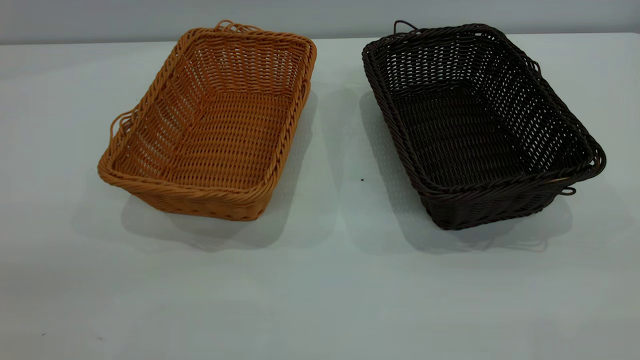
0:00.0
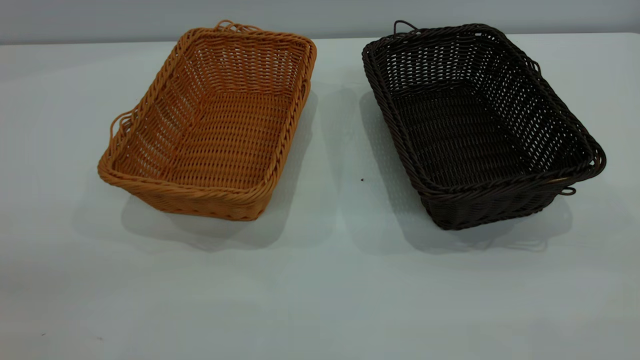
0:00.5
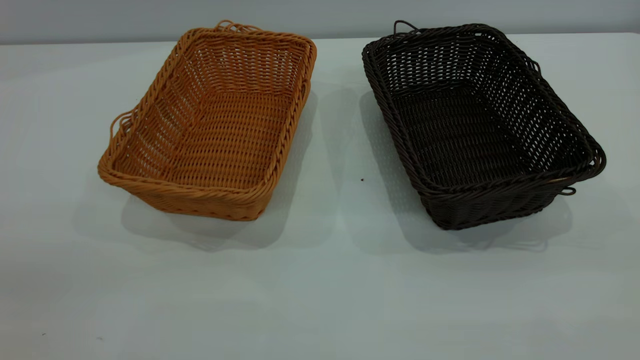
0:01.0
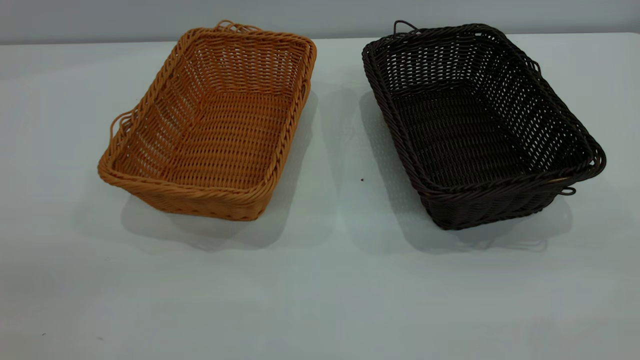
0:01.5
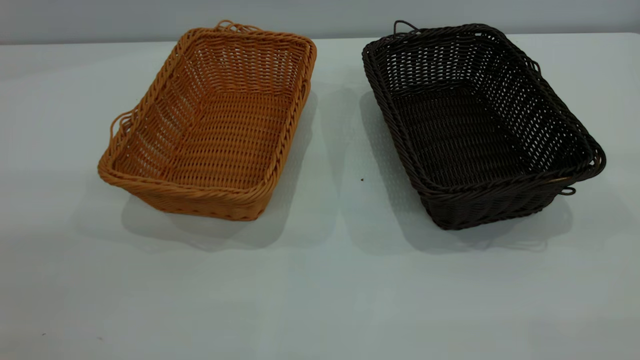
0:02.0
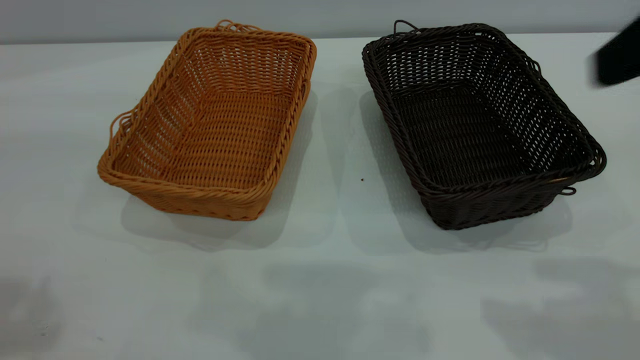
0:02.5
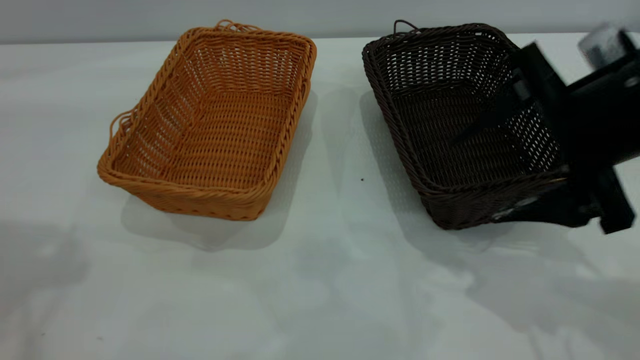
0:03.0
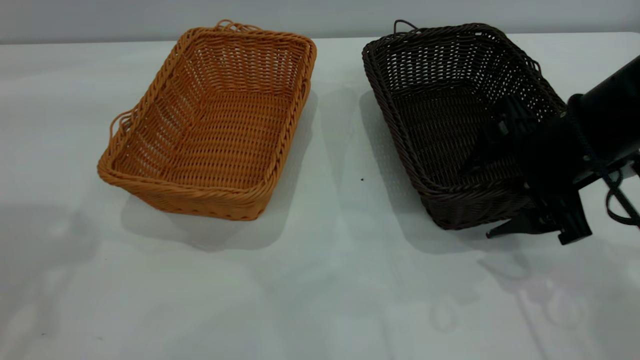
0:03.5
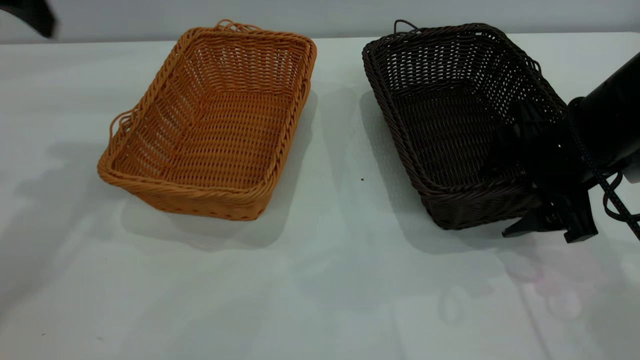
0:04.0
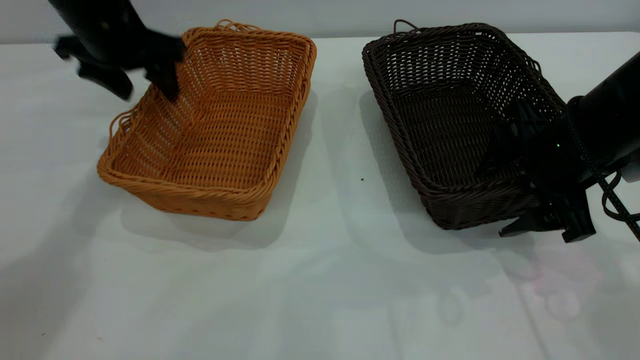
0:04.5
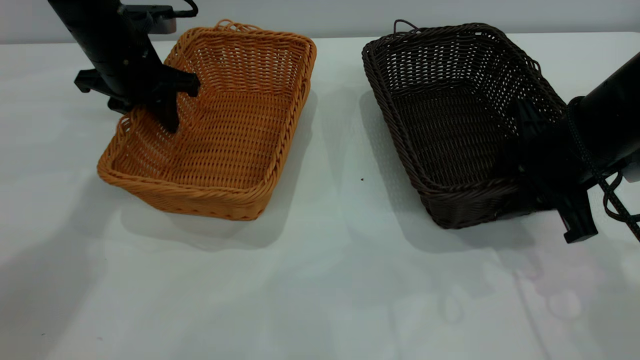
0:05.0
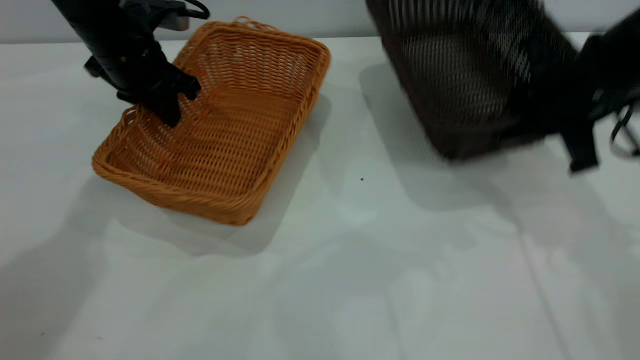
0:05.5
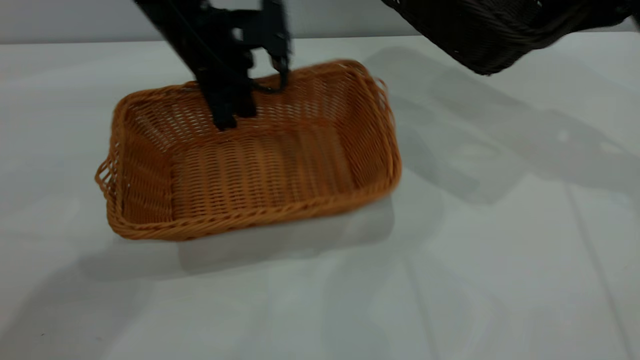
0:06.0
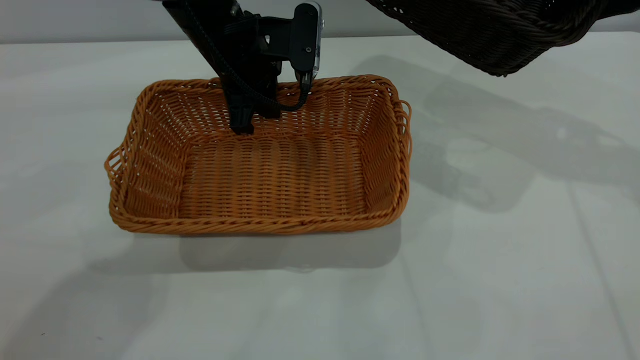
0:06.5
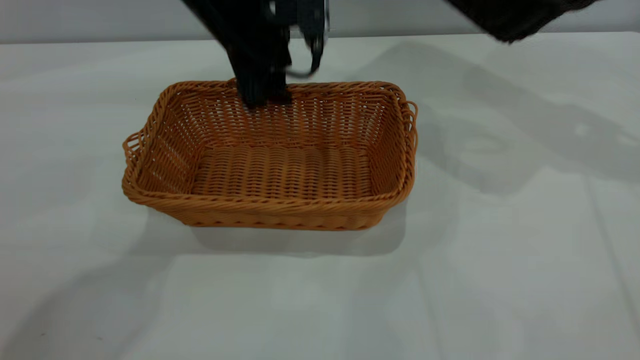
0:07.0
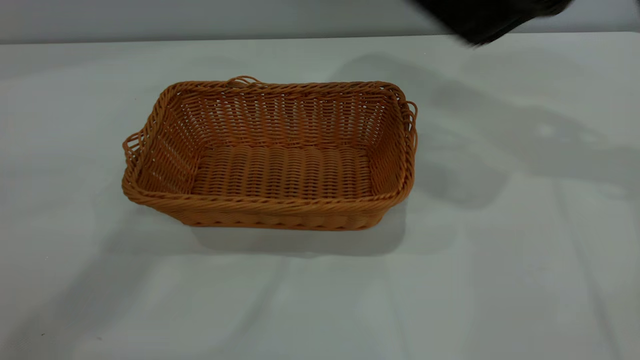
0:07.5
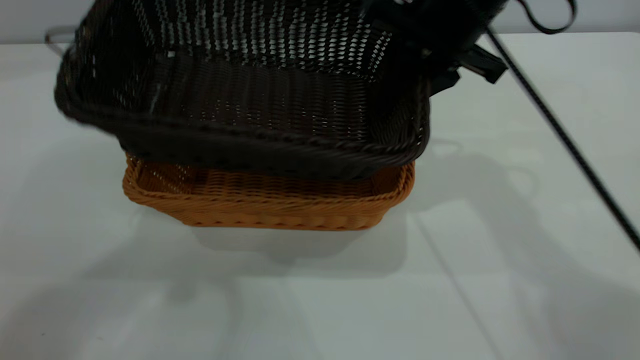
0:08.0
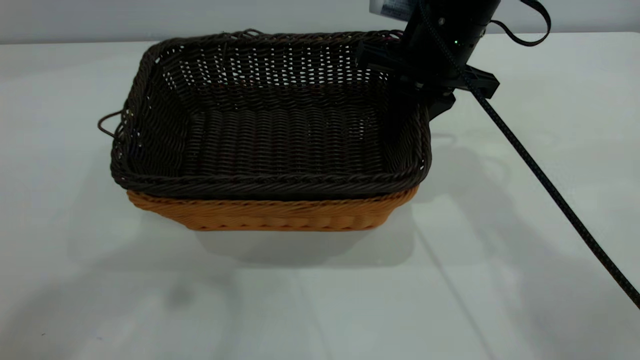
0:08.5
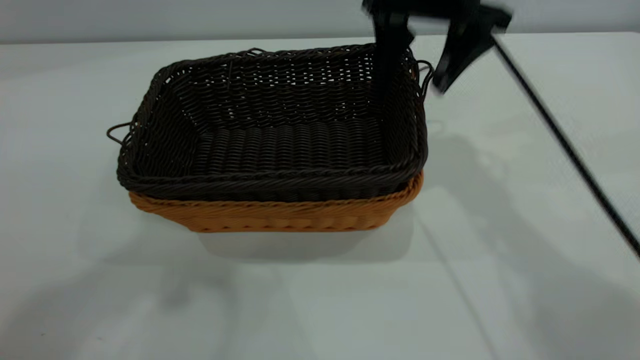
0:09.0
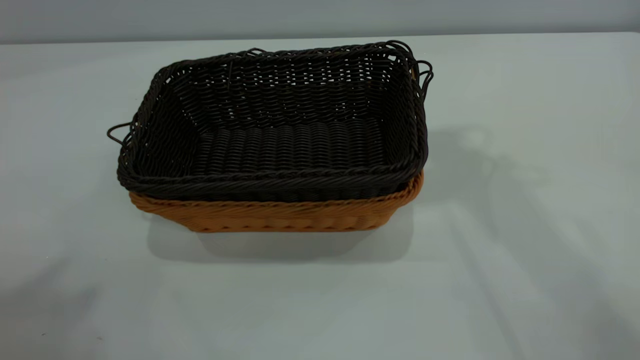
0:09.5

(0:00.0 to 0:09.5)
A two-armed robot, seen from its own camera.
Task of the whole recording: the left gripper grasp the brown basket and place it in the center of the table, the right gripper grasp the black basket and place it inside the brown one.
Step, 0:00.0 - 0:05.0: Pick up the light basket with the right gripper.
Step, 0:05.5 - 0:07.0: Place the light-colored basket in the center.
Step, 0:07.5 - 0:09.0: Place the dark basket on top of the light basket.
0:02.0 - 0:04.0: The left gripper moves forward, some 35 cm. The right gripper is displaced downward and forward by some 35 cm.
0:04.0 - 0:05.5: The left gripper goes roughly 20 cm downward, forward and to the right, and closes its fingers; the right gripper is displaced upward by about 5 cm, and closes.
0:05.5 - 0:07.5: The left gripper heads upward and backward, covering some 30 cm, and opens. Meanwhile the right gripper moves upward and forward, some 10 cm.
0:07.5 - 0:09.5: The right gripper travels upward and to the left by about 25 cm, and opens; the left gripper moves backward, upward and to the left, about 30 cm.

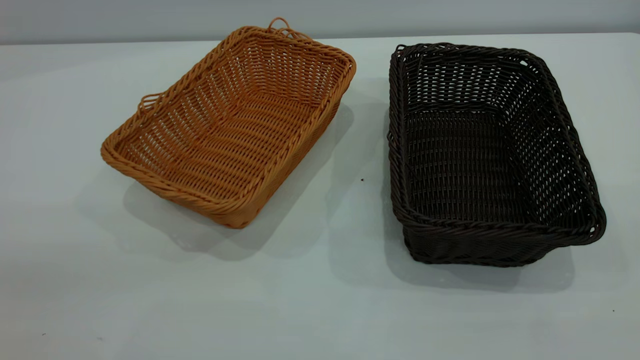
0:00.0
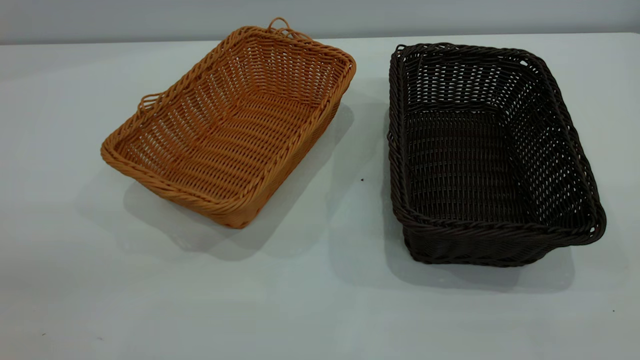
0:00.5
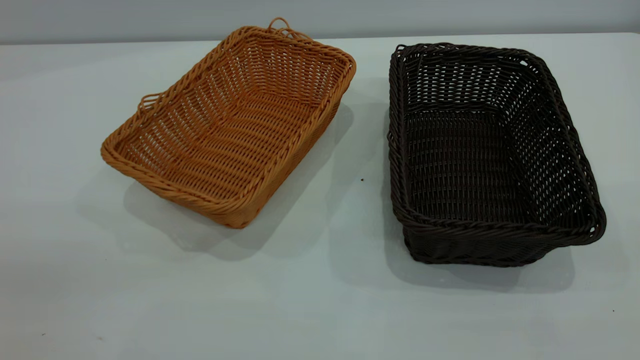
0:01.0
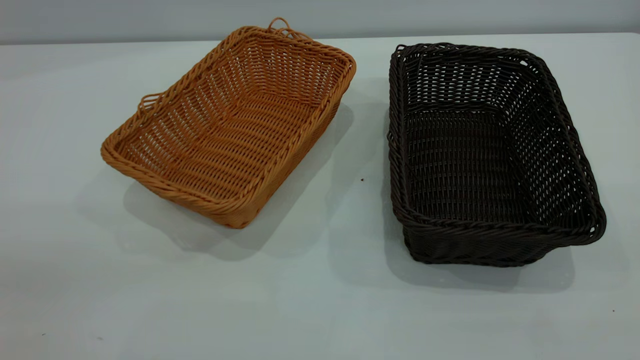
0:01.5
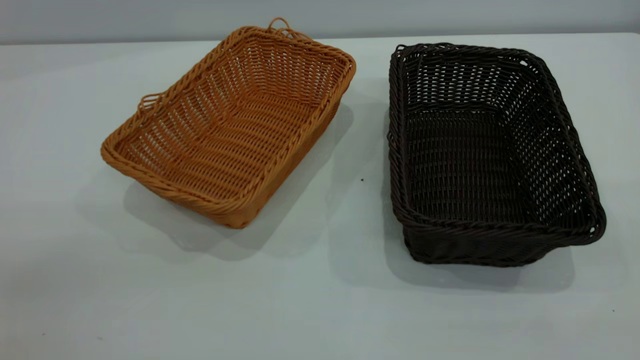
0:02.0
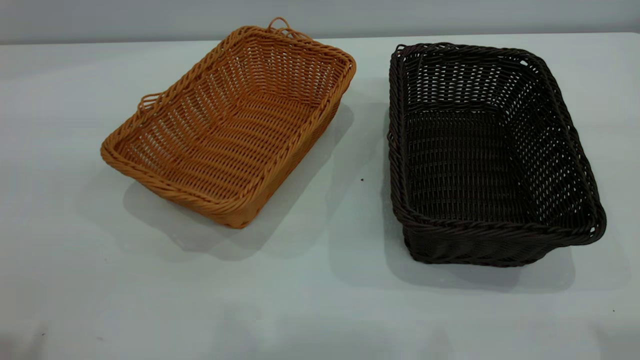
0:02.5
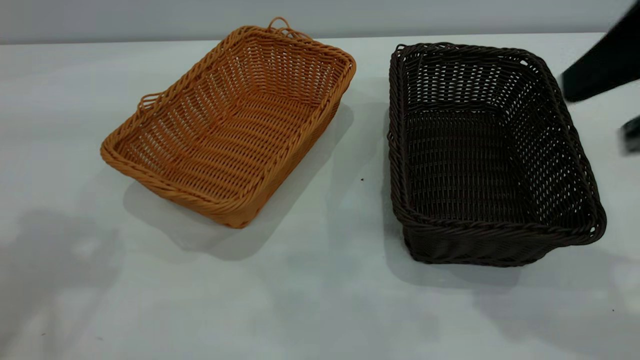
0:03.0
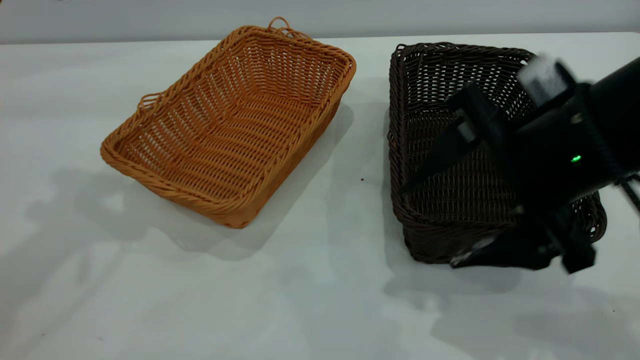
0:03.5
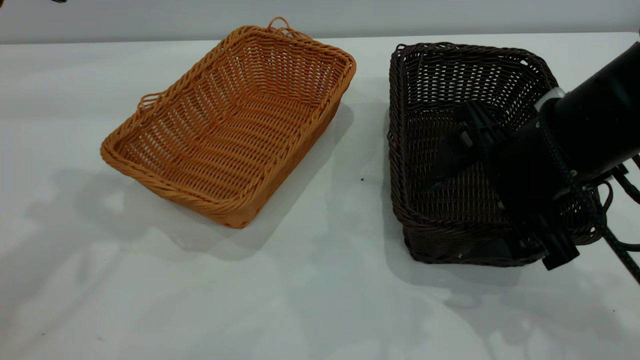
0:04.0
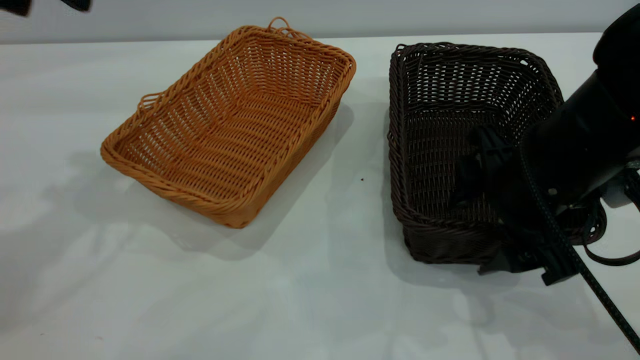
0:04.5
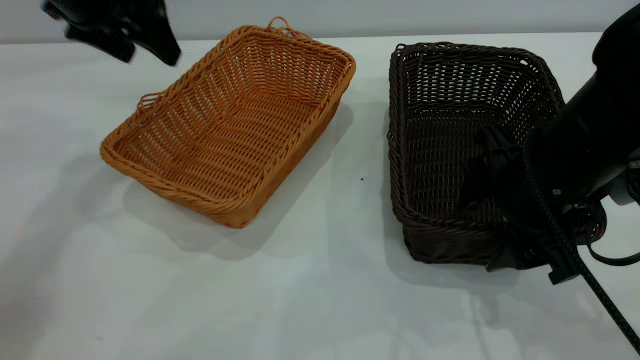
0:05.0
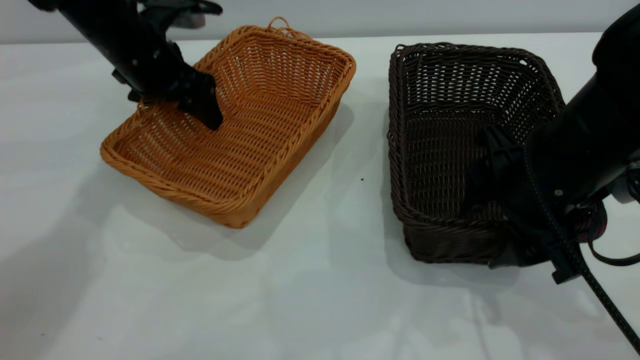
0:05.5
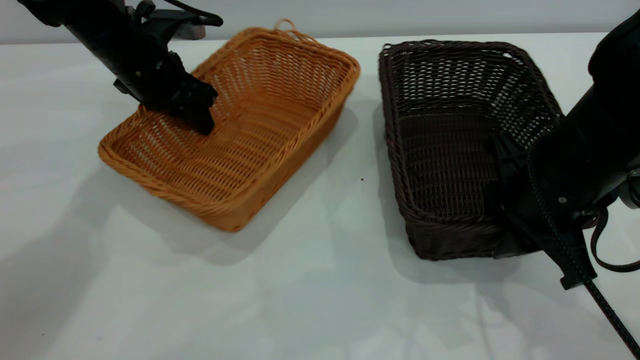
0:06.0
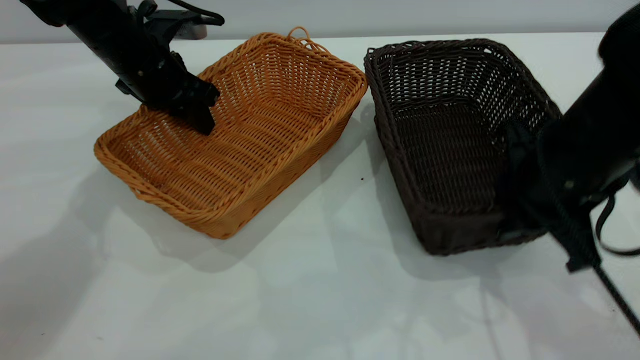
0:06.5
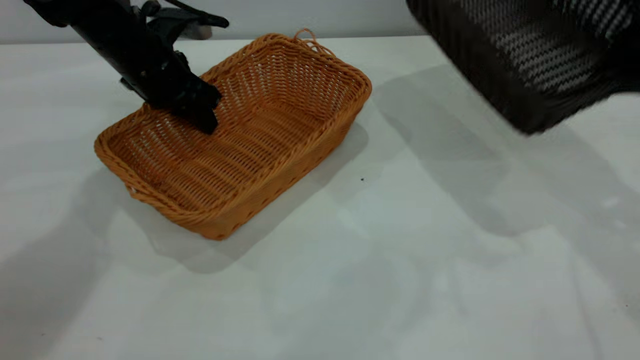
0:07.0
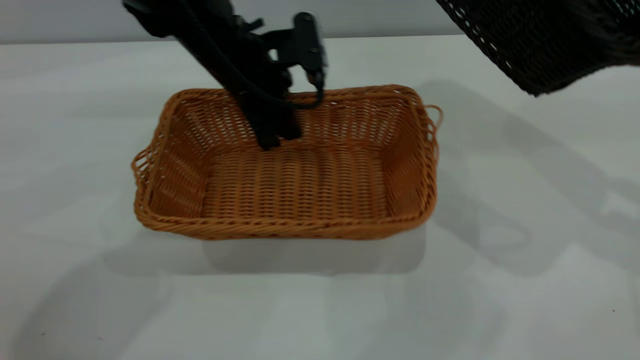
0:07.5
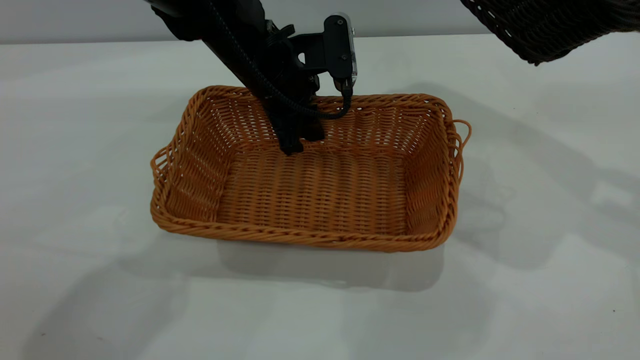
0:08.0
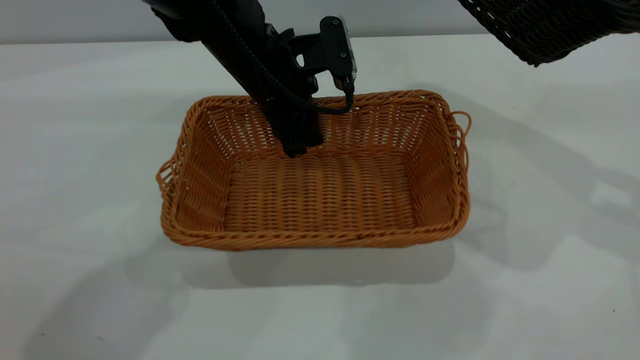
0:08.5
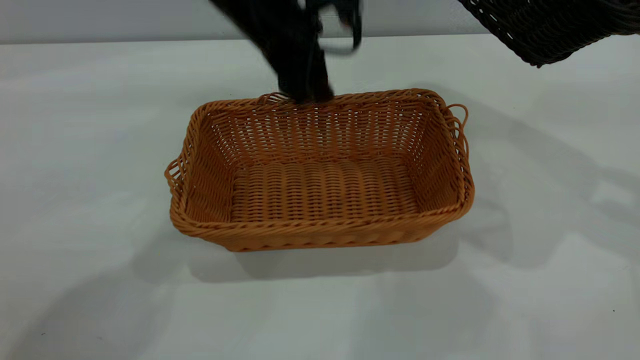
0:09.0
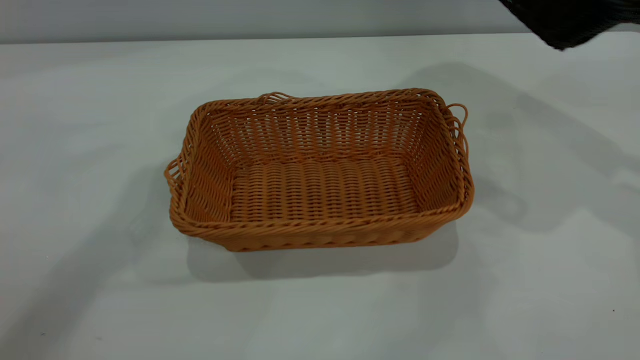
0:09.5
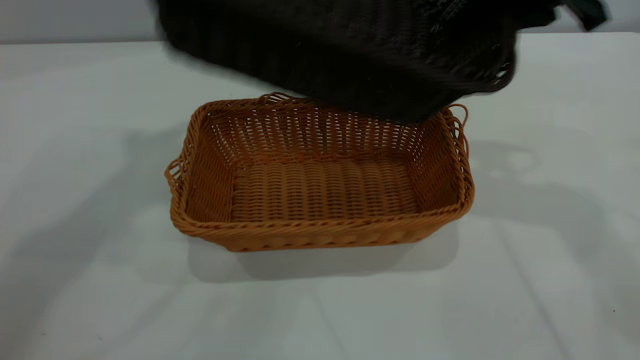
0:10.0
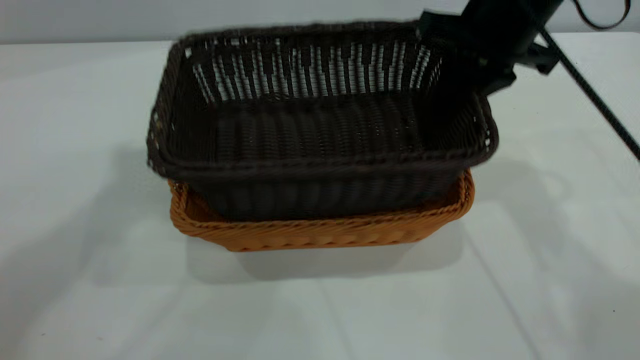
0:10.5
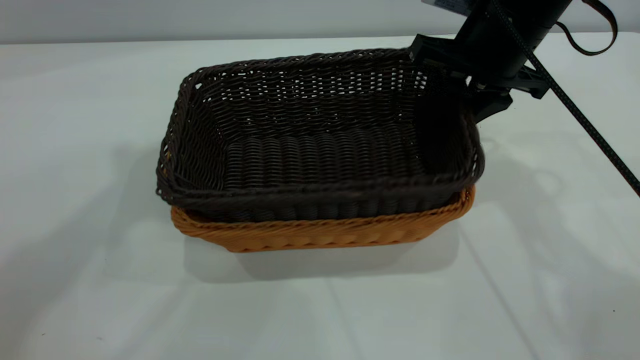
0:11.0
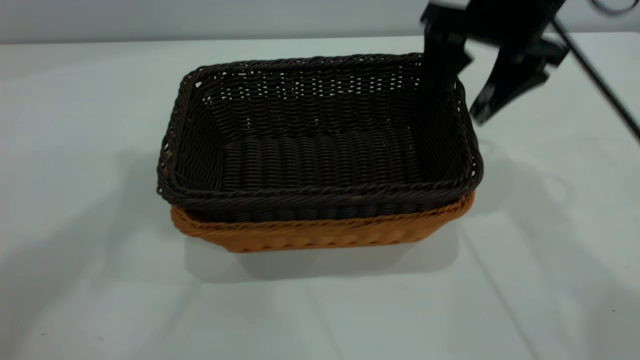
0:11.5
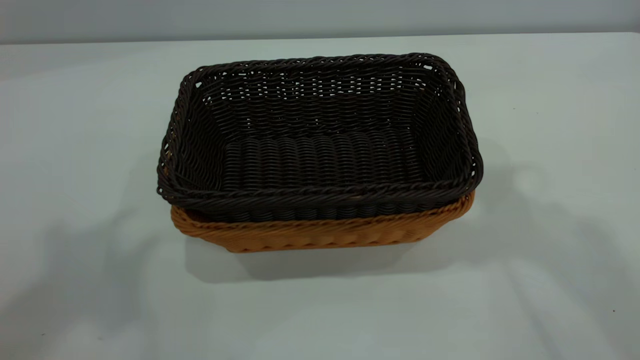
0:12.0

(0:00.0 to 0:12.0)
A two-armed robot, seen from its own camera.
Task of the whole recording: the left gripper grasp the brown basket and place it in the center of the table, the right gripper grasp the black basket and place it inside the brown one.
Step, 0:00.0 - 0:06.5: Pick up the light basket with the right gripper.
Step, 0:07.0 - 0:09.0: Place the light-colored basket in the center.
Step, 0:09.5 - 0:11.5: Place the dark basket on top of the light basket.
0:00.0 - 0:02.0: Neither gripper changes place.
0:02.0 - 0:04.0: The right gripper is displaced forward, downward and to the left by approximately 35 cm.
0:04.0 - 0:06.0: The right gripper closes up. Meanwhile the left gripper shifts about 25 cm downward and forward, and closes up.
0:06.0 - 0:08.0: The left gripper travels to the right by about 15 cm. Meanwhile the right gripper moves upward and to the right, approximately 20 cm.
0:08.0 - 0:10.0: The right gripper heads to the left and forward, covering roughly 15 cm, while the left gripper heads upward, covering some 40 cm, and opens.
0:10.0 - 0:12.0: The right gripper shifts approximately 20 cm upward and backward, and opens its fingers. Meanwhile the left gripper shifts about 15 cm backward and upward.
